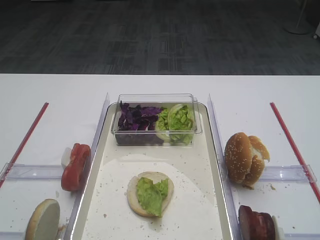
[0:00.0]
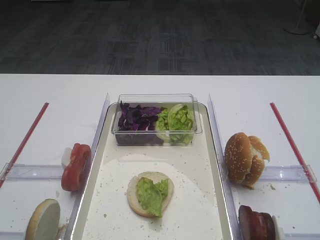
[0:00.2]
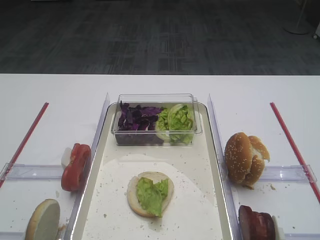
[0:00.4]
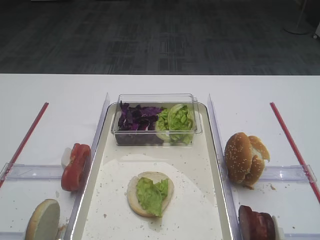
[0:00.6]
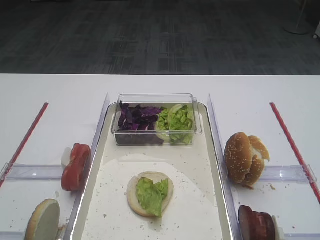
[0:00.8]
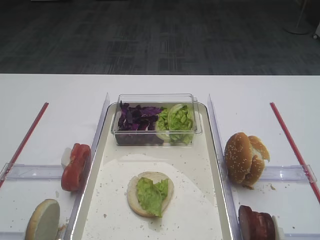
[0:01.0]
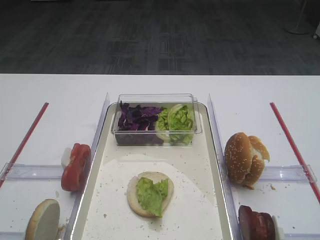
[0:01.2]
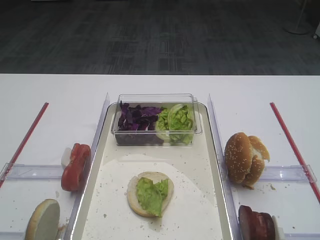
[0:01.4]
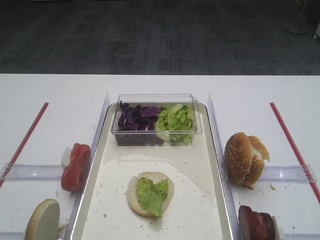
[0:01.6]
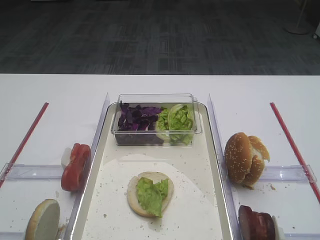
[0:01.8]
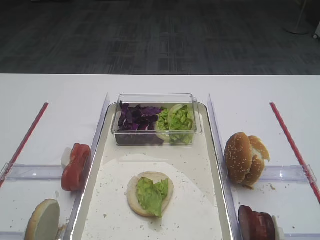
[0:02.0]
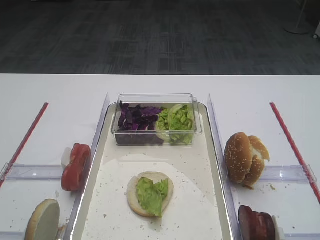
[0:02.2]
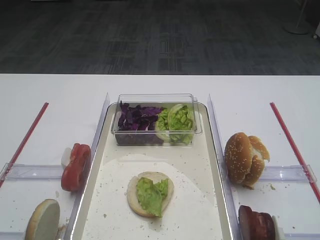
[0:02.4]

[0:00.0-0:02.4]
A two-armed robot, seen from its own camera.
0:00.0 to 0:02.4: Neither gripper changes place.

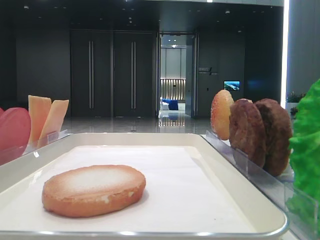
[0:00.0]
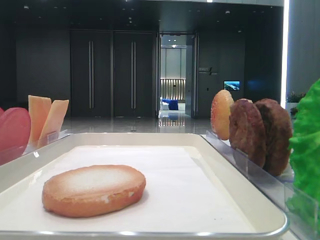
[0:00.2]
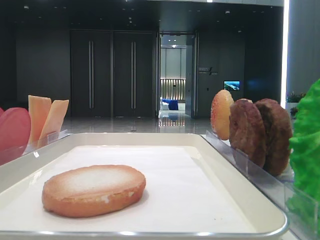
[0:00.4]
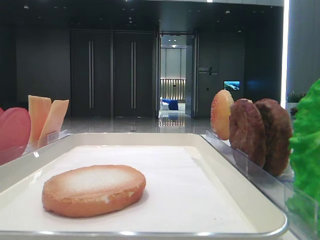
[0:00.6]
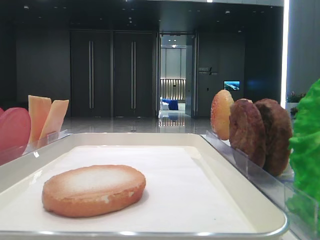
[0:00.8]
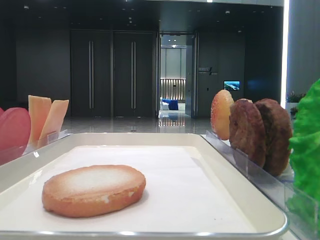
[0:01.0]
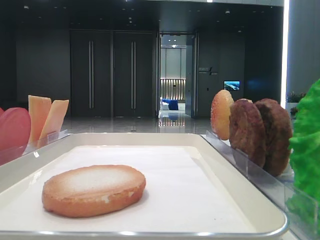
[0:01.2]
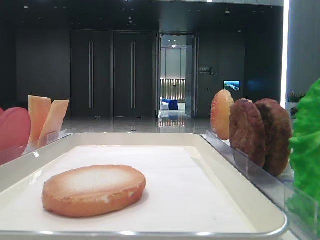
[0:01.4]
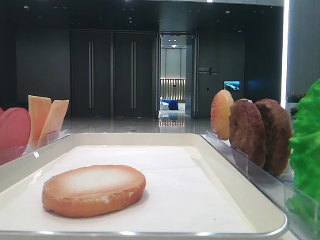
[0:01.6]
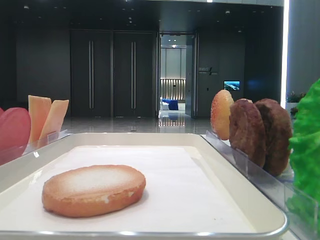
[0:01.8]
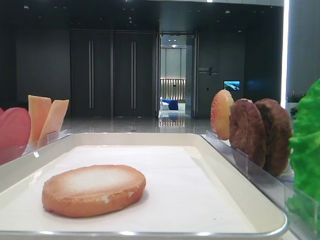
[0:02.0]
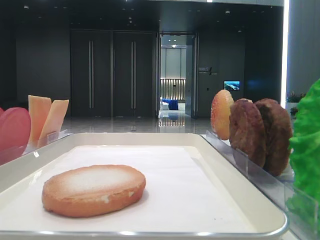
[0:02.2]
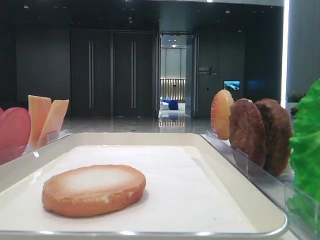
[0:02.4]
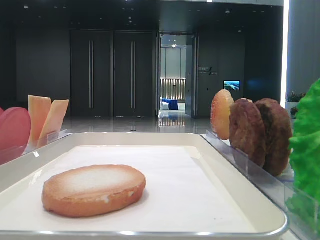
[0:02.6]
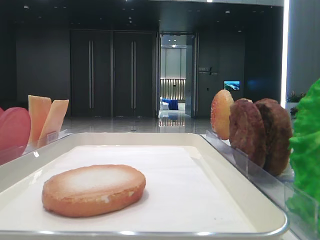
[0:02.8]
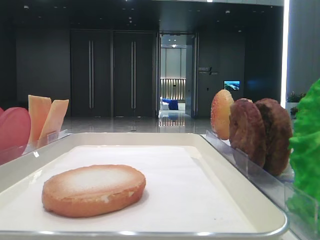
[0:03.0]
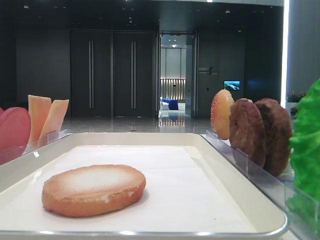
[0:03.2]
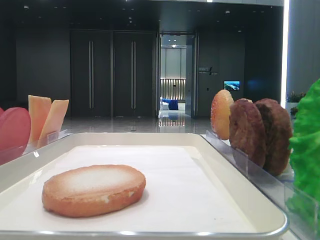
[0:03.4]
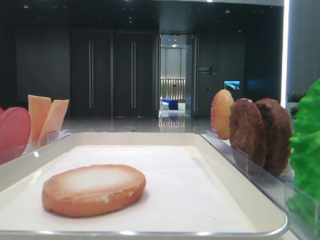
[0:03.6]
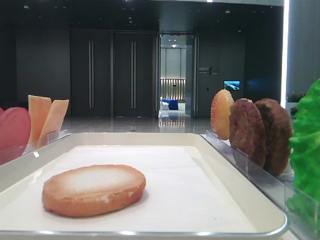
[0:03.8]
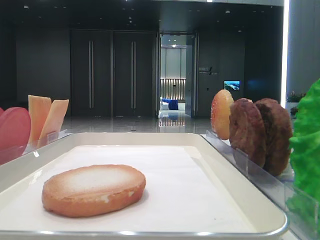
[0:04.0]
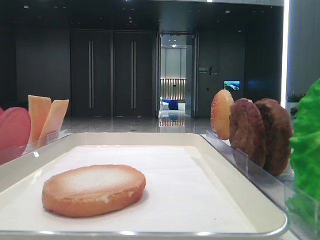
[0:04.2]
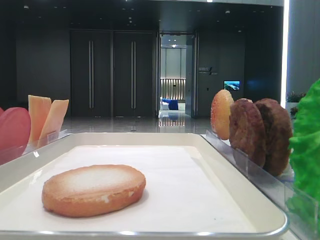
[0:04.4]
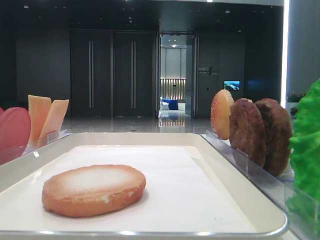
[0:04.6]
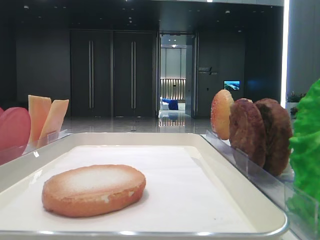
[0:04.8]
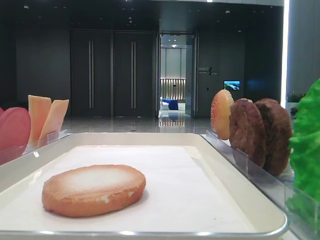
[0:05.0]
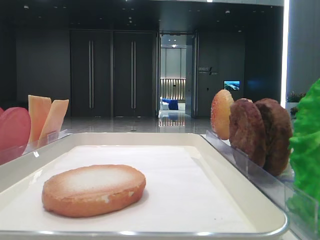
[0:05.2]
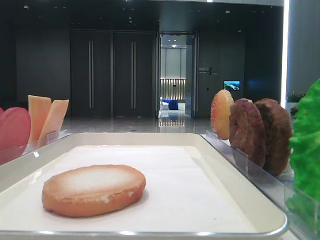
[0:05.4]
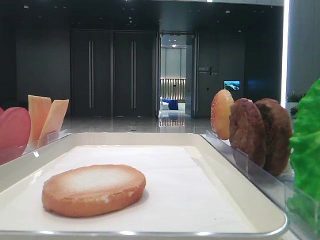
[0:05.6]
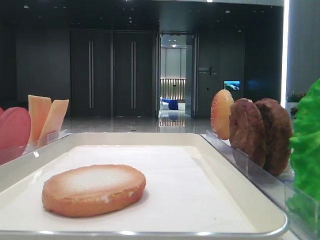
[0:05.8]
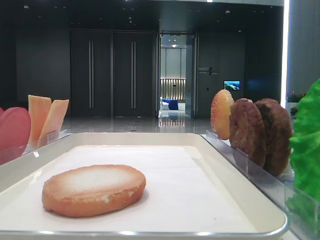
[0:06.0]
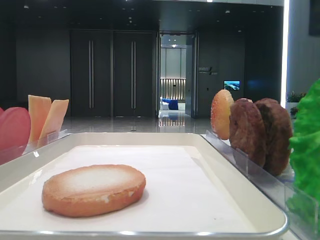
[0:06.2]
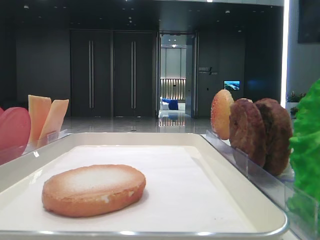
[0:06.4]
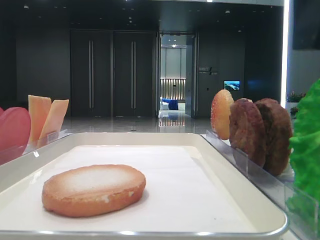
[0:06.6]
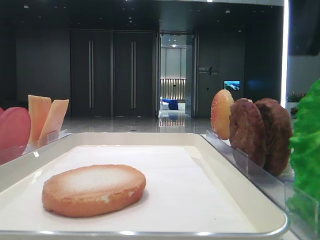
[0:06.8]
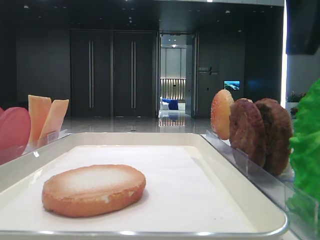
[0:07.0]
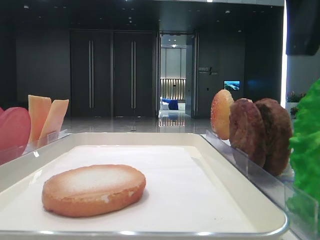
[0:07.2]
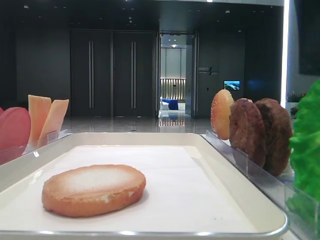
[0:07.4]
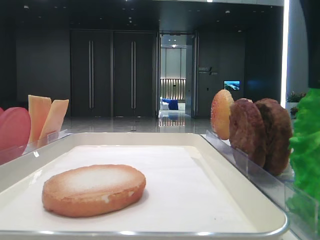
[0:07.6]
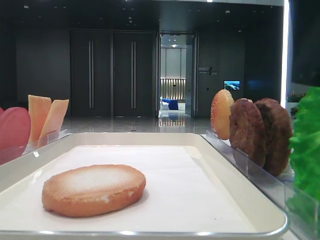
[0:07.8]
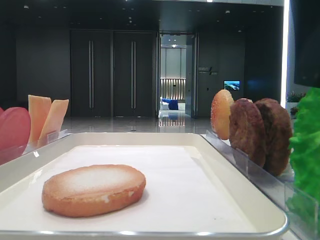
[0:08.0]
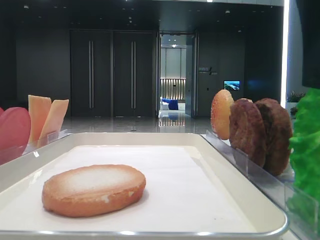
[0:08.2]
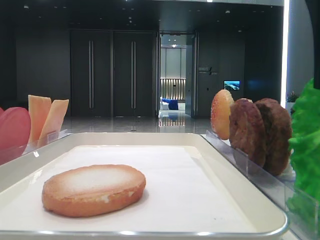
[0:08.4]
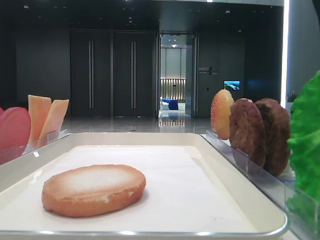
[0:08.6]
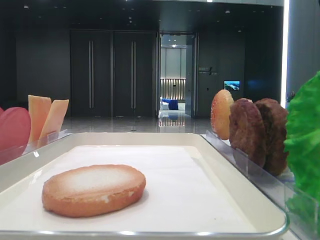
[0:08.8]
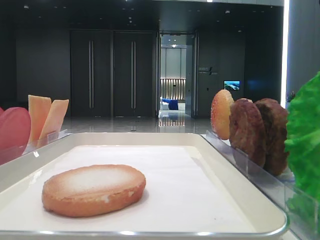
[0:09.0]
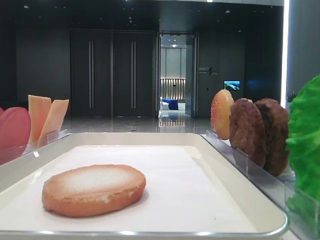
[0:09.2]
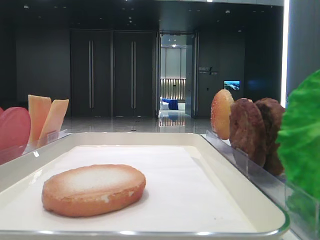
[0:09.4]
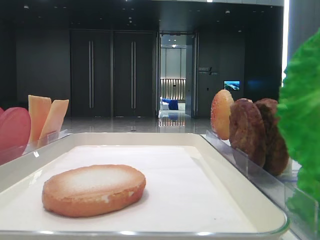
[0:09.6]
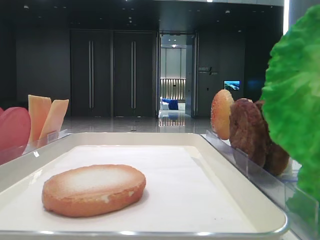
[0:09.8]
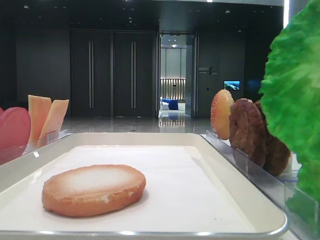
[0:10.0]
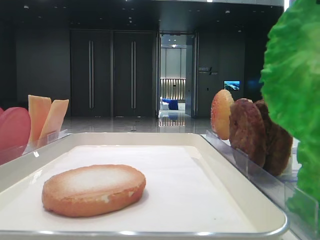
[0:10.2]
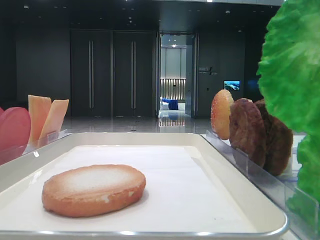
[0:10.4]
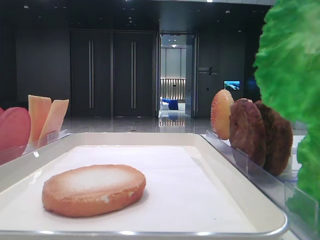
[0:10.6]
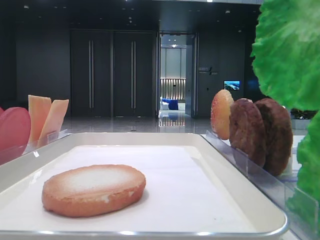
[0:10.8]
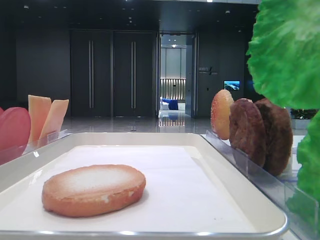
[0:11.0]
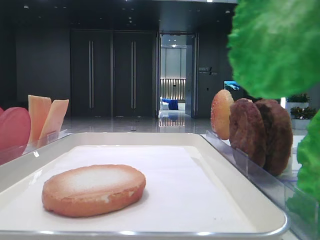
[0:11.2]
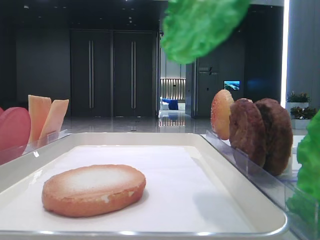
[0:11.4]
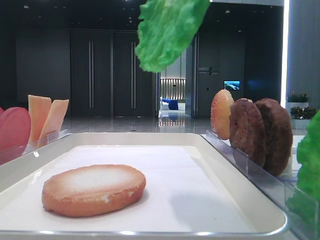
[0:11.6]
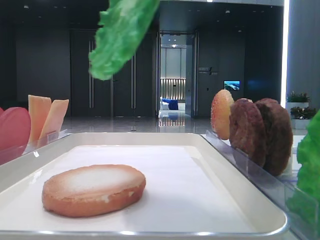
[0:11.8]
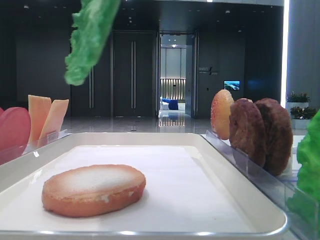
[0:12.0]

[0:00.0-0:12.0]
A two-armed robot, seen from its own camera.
Step, 0:00.0 to 0:09.4: Grab the lettuce leaf with the right hand.
0:06.0 to 0:07.6: The grippers stay close to where they were, moving slightly.
0:07.6 to 0:09.0: The right gripper closes up.
0:09.0 to 0:10.4: The right gripper travels upward by some 5 cm.
0:10.4 to 0:12.0: The right gripper is displaced to the left by approximately 10 cm.

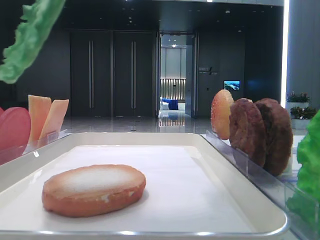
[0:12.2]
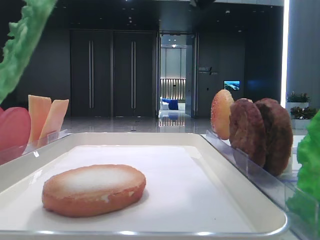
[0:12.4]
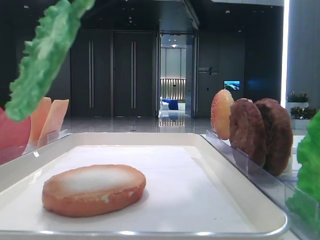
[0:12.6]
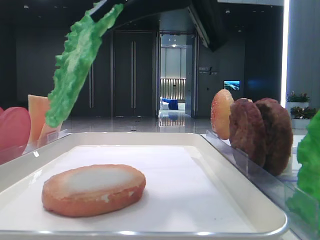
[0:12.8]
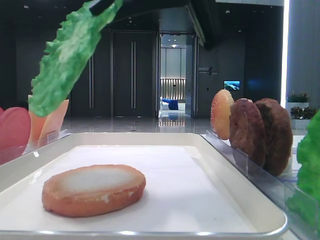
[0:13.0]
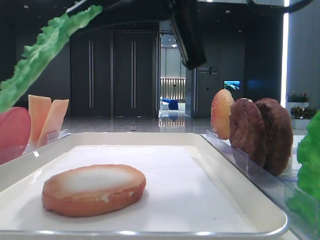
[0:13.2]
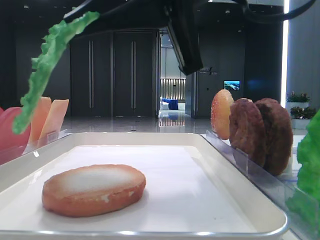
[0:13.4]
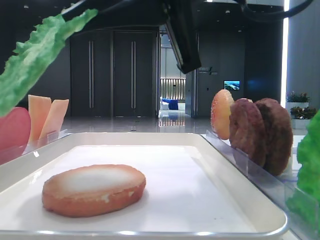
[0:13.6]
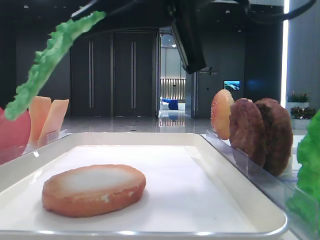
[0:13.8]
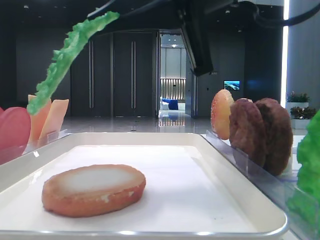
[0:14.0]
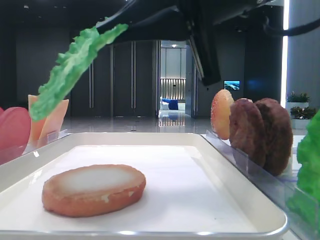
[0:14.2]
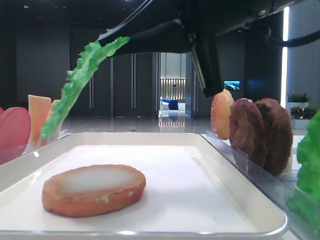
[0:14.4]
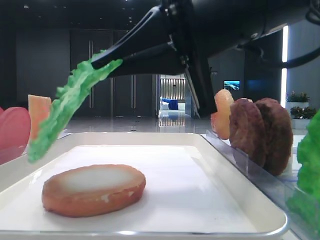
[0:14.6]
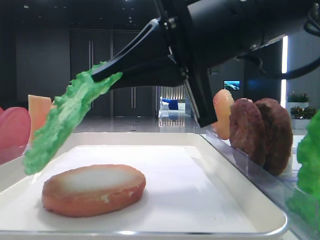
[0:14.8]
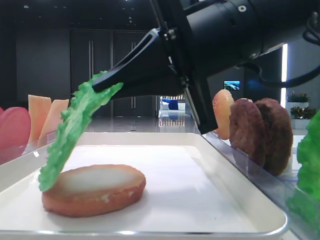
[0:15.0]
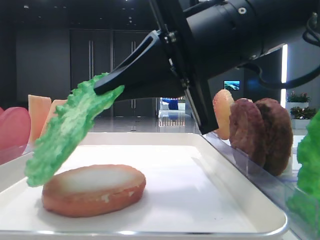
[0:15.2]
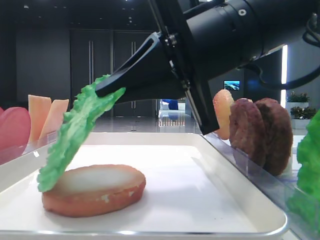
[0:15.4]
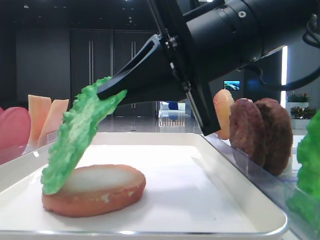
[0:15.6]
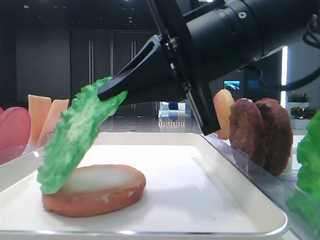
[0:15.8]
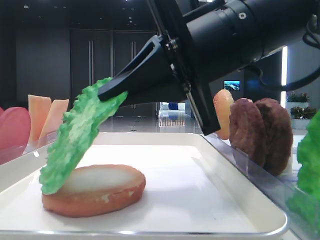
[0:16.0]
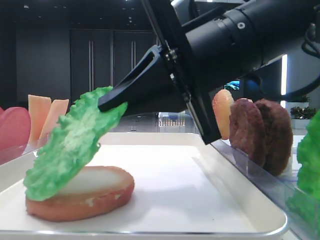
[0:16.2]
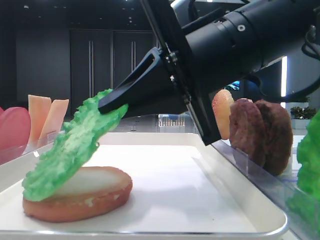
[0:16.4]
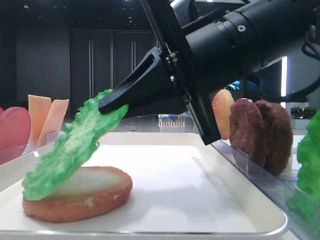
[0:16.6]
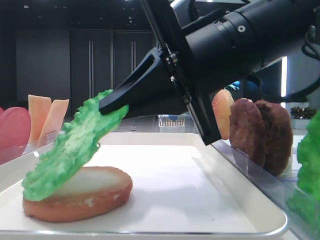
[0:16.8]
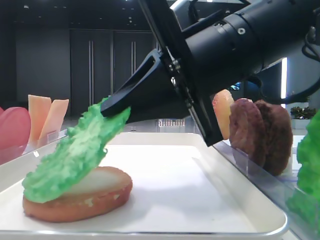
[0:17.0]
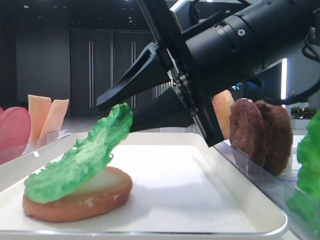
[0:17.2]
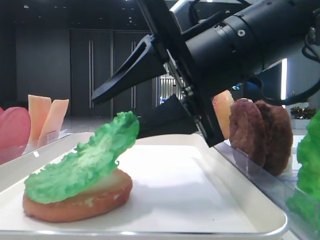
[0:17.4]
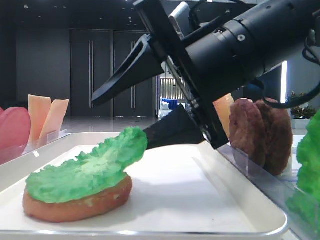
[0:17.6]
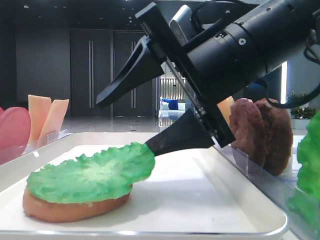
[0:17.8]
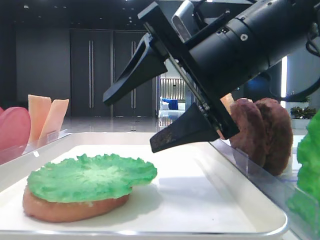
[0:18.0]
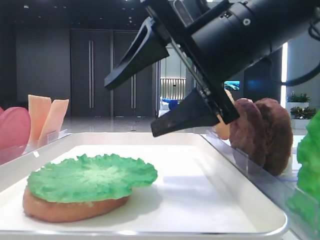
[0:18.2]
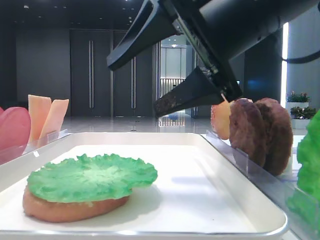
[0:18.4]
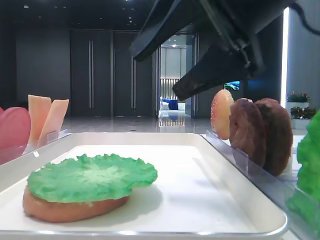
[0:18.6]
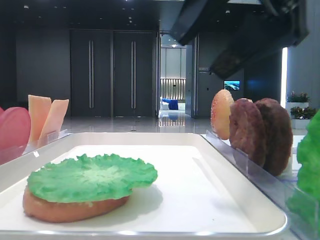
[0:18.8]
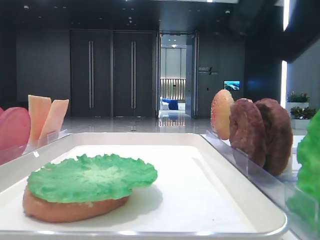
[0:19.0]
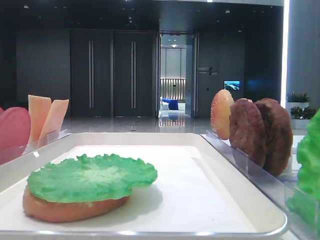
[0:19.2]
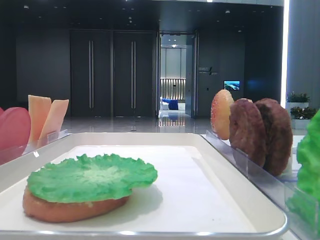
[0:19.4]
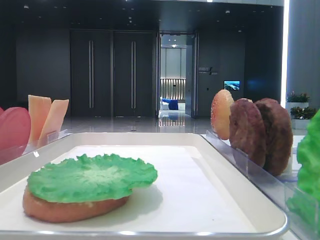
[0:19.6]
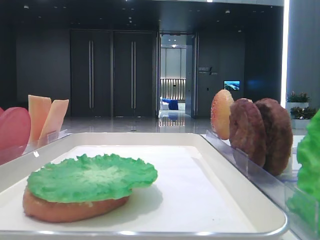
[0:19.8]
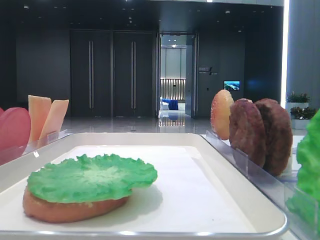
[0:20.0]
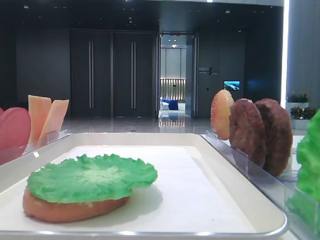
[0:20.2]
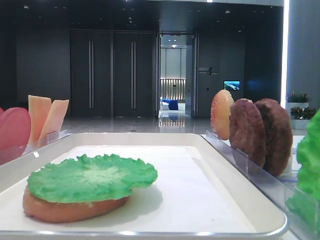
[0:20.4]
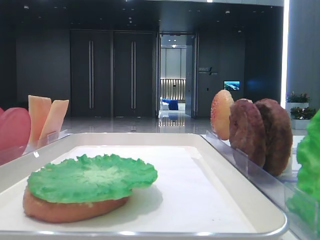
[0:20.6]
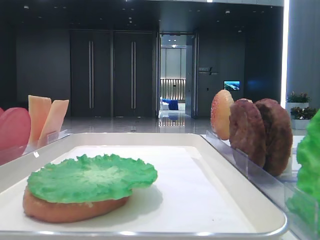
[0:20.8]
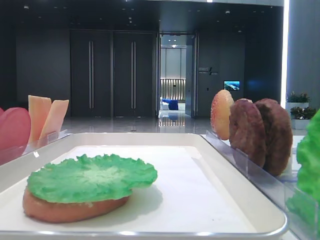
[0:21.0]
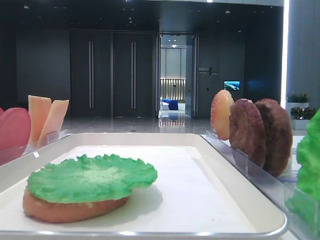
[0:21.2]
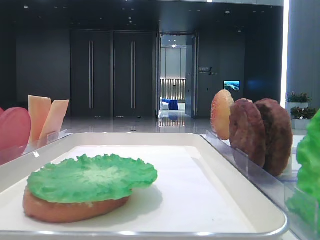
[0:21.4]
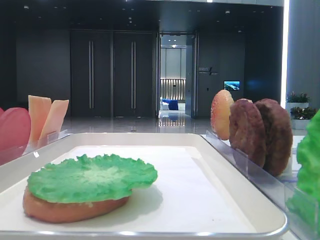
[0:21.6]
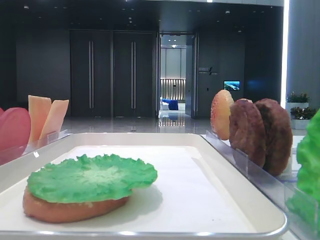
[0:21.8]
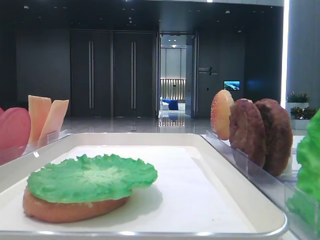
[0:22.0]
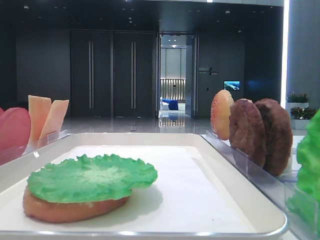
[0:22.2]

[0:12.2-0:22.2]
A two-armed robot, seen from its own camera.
Step, 0:12.2 to 0:17.8: Place the lettuce leaf on the bottom bread with the right hand.
0:12.2 to 0:13.6: The right gripper travels downward by approximately 5 cm.
0:13.6 to 0:15.0: The right gripper shifts roughly 5 cm downward.
0:15.0 to 0:16.4: Both grippers stay about where they are.
0:16.4 to 0:18.0: The right gripper opens.
0:18.0 to 0:19.4: The right gripper moves to the right, upward and backward, roughly 20 cm.
